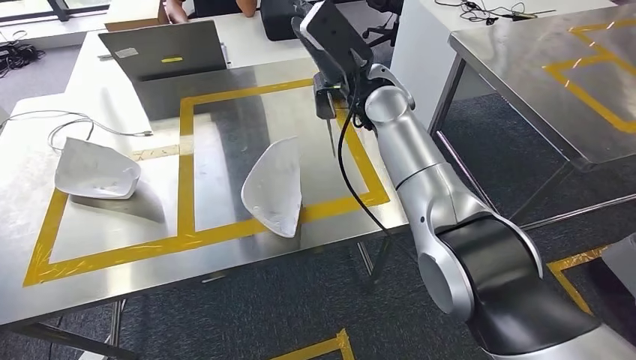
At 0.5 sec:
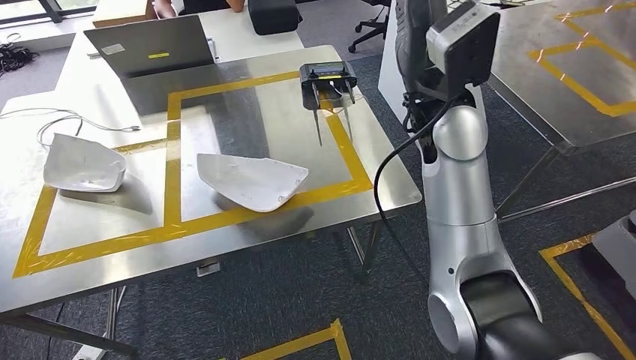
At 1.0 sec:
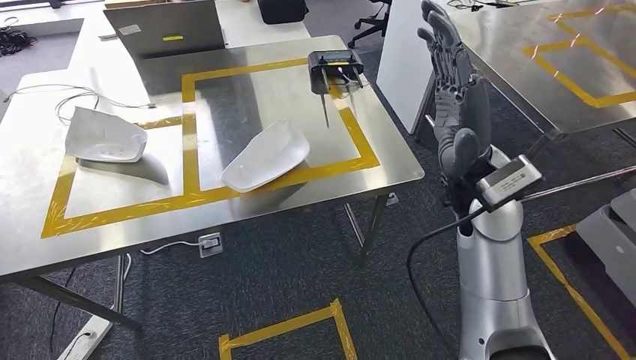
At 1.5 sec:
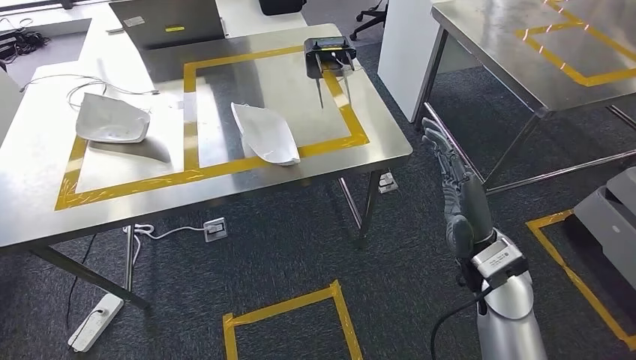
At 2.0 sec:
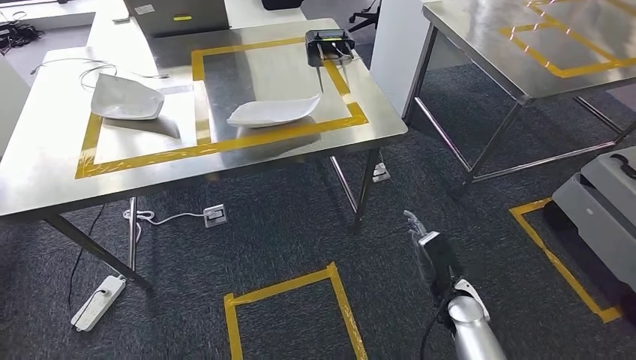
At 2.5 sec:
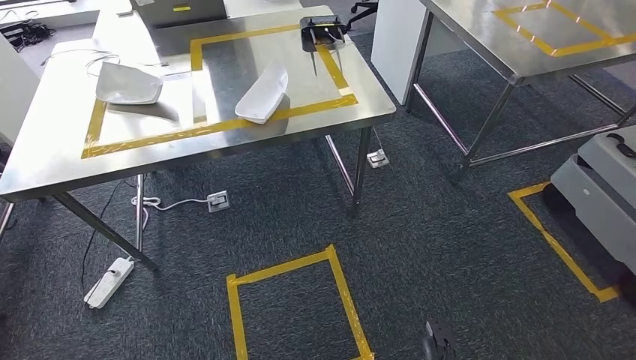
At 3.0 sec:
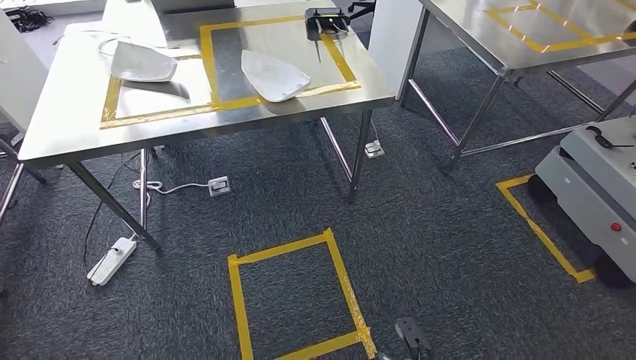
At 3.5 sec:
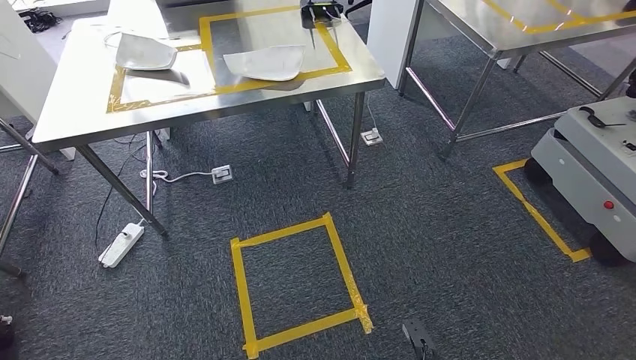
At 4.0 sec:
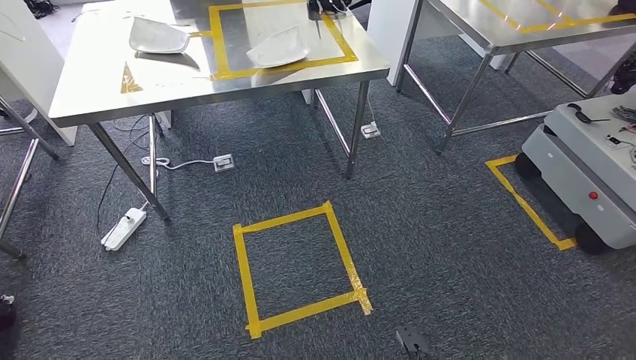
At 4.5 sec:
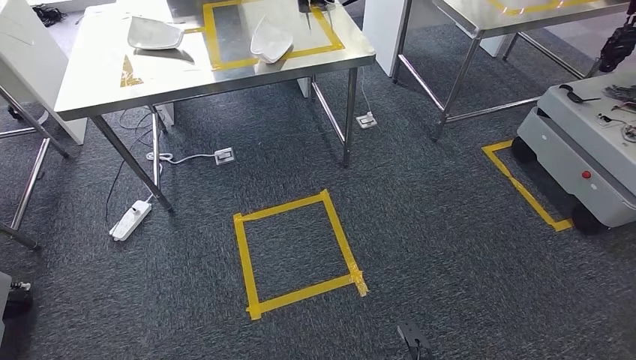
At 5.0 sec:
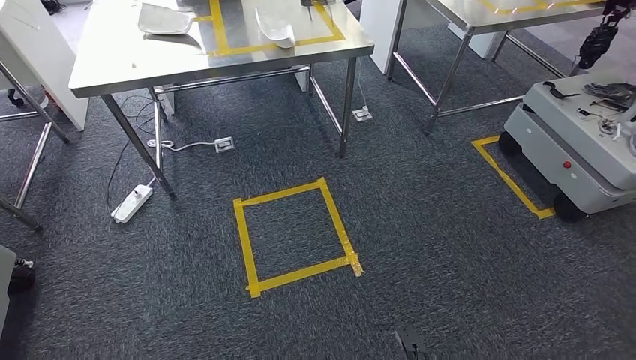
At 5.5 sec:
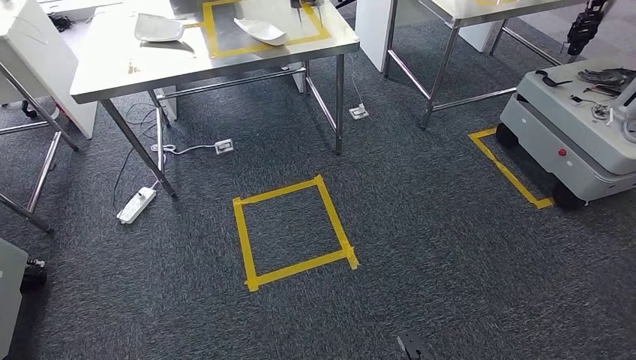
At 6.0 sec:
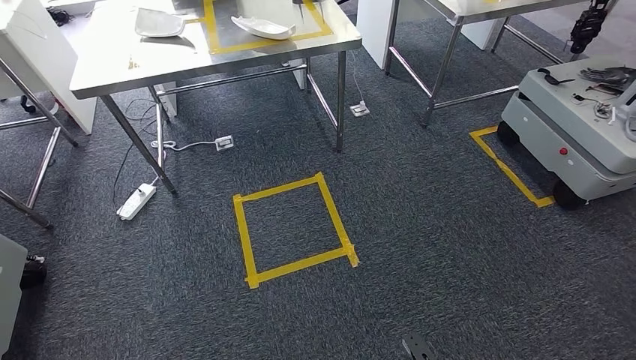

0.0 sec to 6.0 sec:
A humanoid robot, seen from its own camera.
Step, 1.5 sec to 6.0 sec: Move to the initial position of the workbench.
